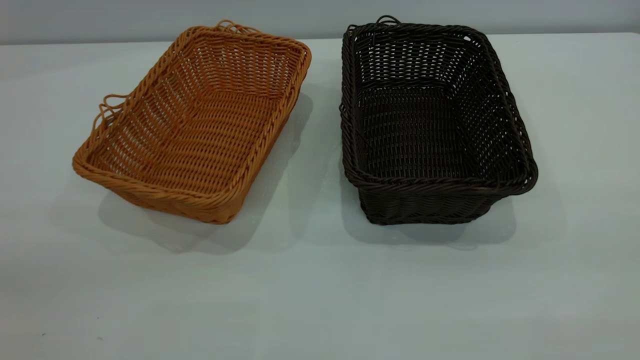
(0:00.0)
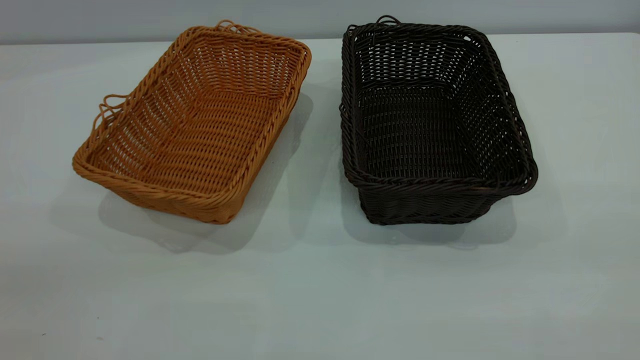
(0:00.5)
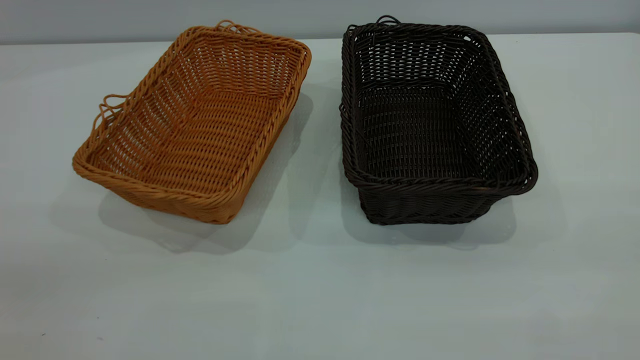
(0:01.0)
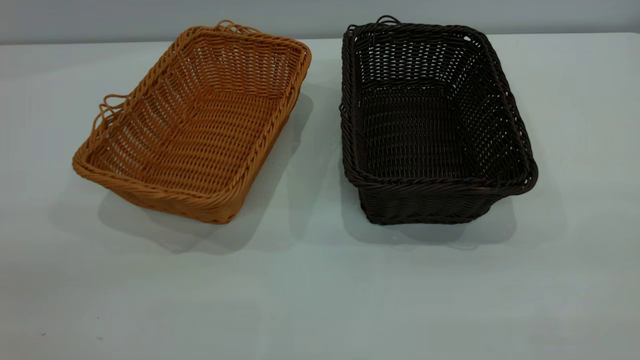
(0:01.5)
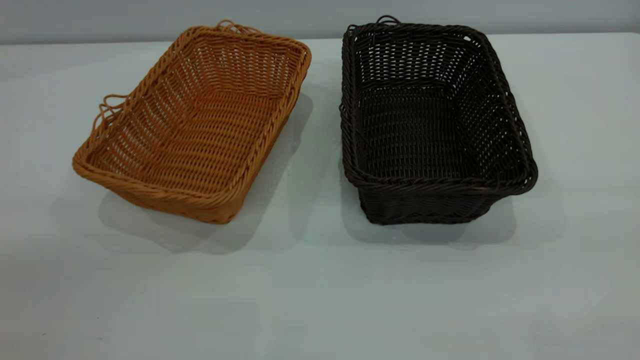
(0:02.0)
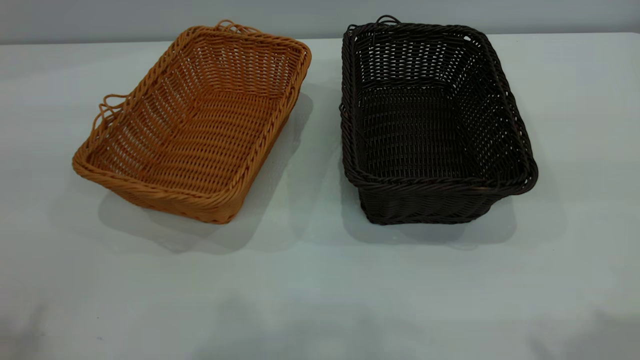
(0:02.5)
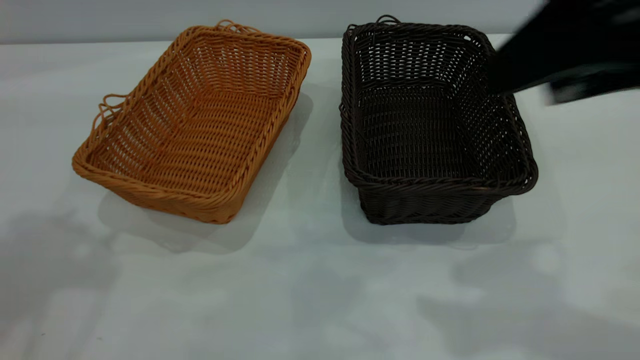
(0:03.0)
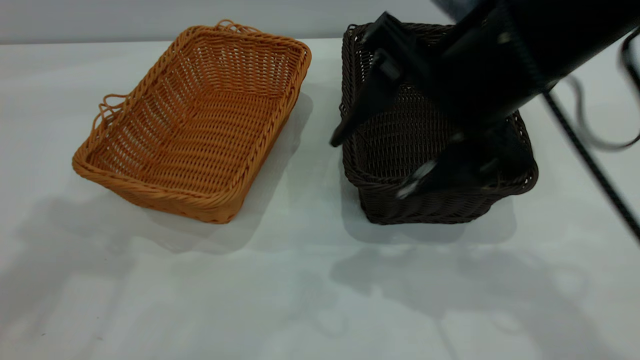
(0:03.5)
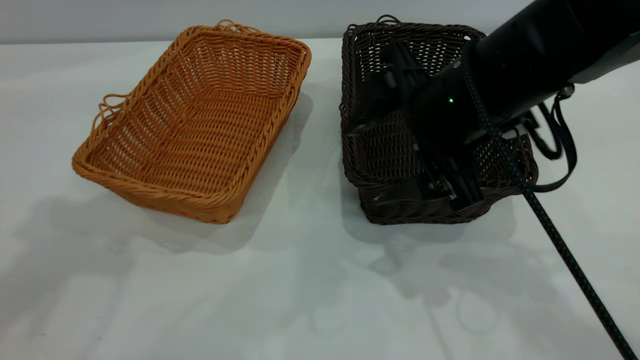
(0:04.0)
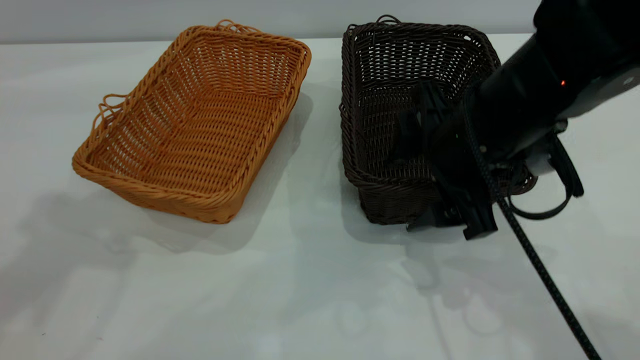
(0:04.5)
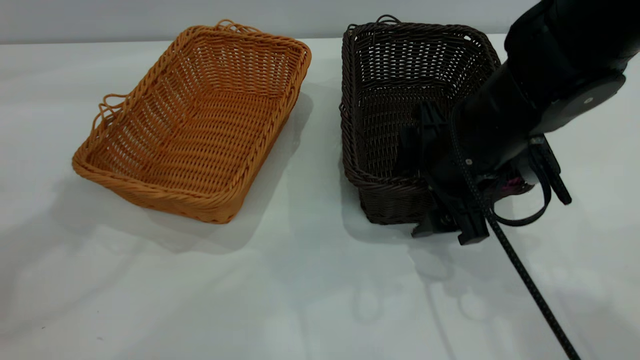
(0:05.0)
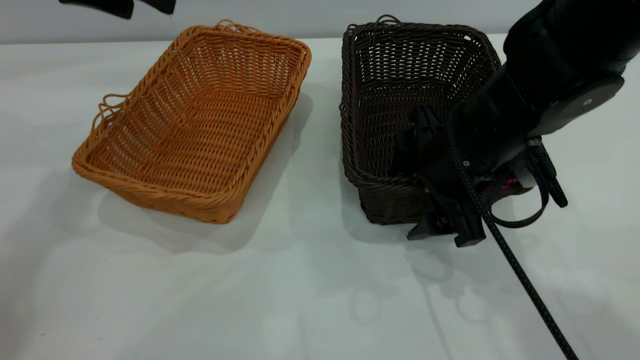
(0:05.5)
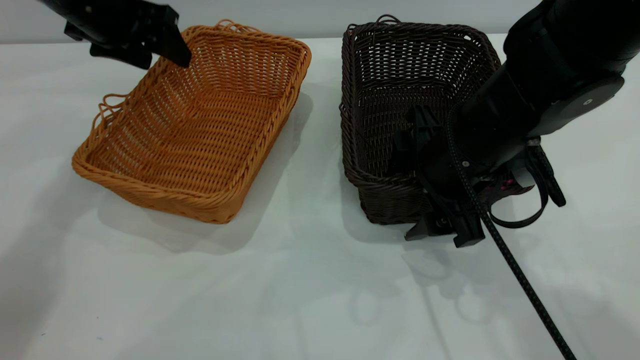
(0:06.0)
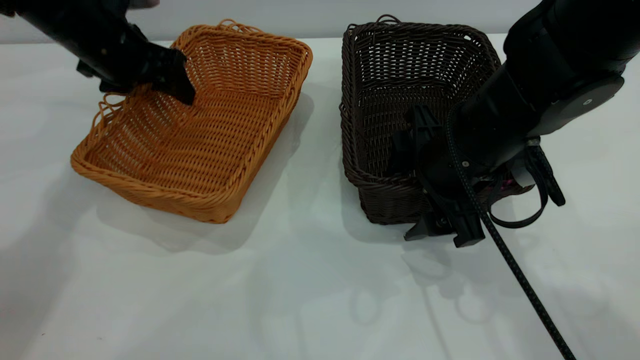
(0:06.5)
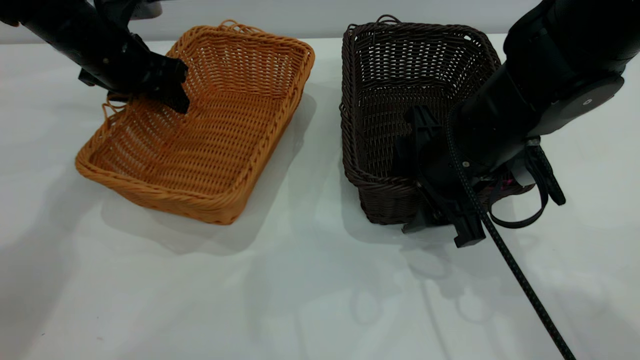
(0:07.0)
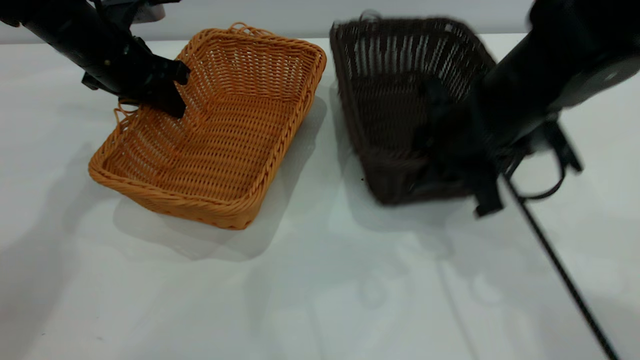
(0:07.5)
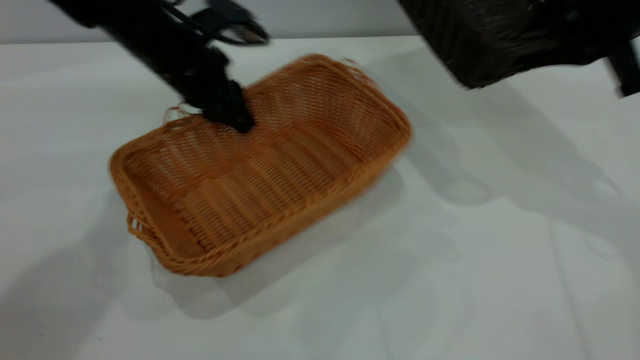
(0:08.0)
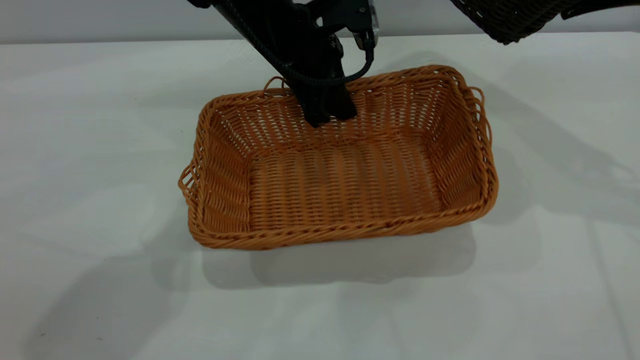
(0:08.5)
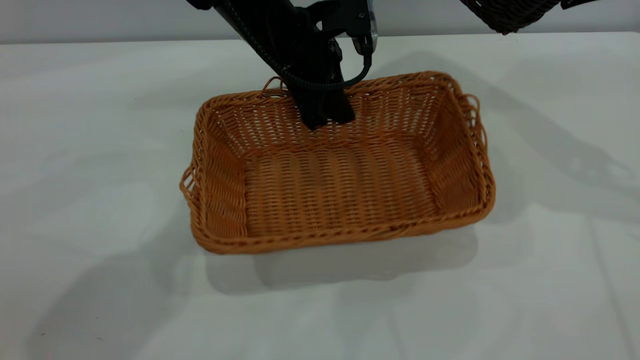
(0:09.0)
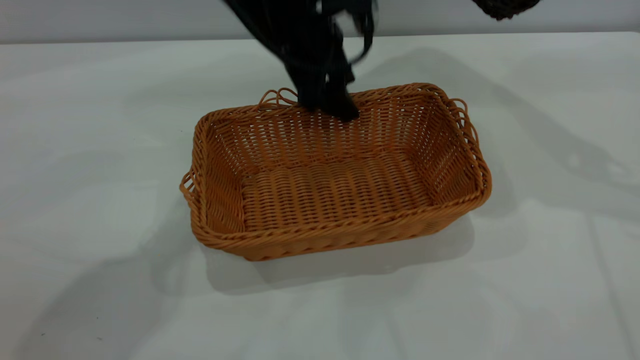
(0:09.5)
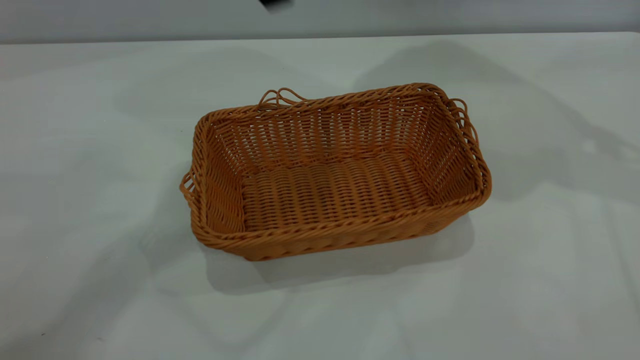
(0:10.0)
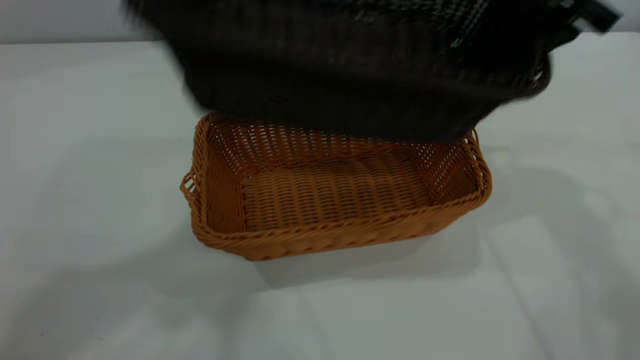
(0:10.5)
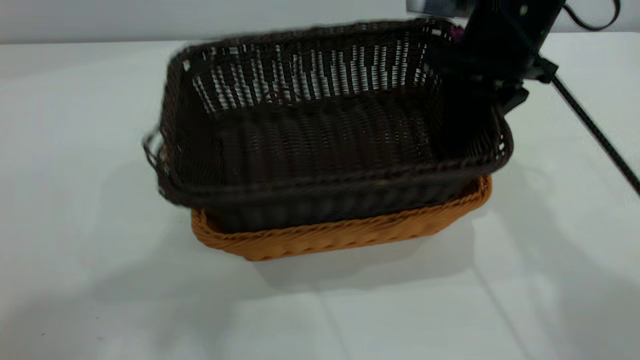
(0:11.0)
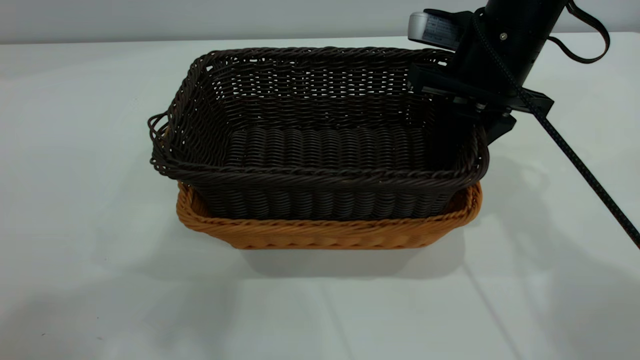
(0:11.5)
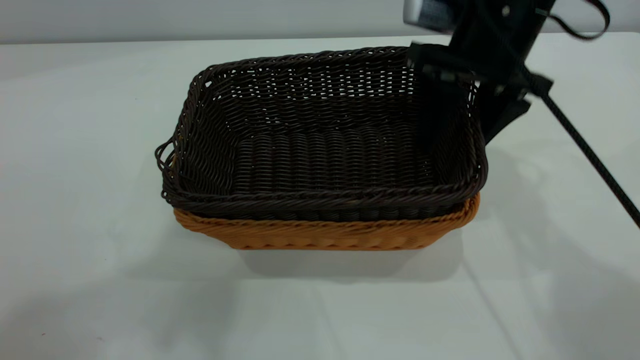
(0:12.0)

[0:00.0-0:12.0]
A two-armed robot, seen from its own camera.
Task of the whole recording: the left gripper grasp the brown basket and place it in the center of the table, the right gripper grasp the black basket and place it inside the brown one.
Step, 0:00.0 to 0:07.5: Pick up the light basket with the right gripper.
Step, 0:08.0 to 0:09.5: Place the light-colored basket in the center.
0:02.0 to 0:04.0: The right gripper is displaced forward, downward and to the left by some 35 cm.
0:04.0 to 0:06.0: The right gripper shifts approximately 5 cm downward. Meanwhile the left gripper is displaced forward and downward by roughly 30 cm.
0:06.0 to 0:08.0: The left gripper is displaced to the right and downward by roughly 10 cm, and closes, while the right gripper travels to the right and upward by approximately 20 cm, and closes up.
0:08.0 to 0:10.0: The right gripper travels upward by roughly 10 cm. The left gripper travels upward by about 25 cm, and opens up.
0:10.0 to 0:12.0: The left gripper goes about 25 cm upward and backward. Meanwhile the right gripper is displaced to the left and downward by approximately 20 cm, and opens its fingers.

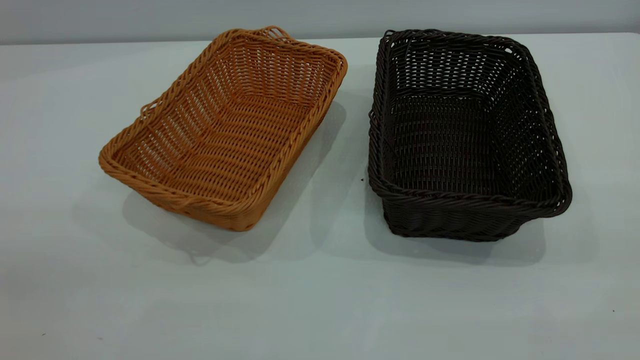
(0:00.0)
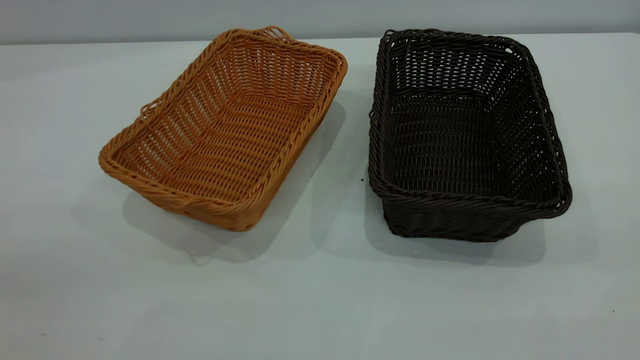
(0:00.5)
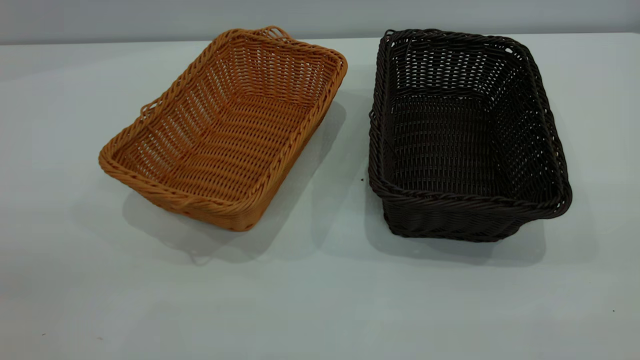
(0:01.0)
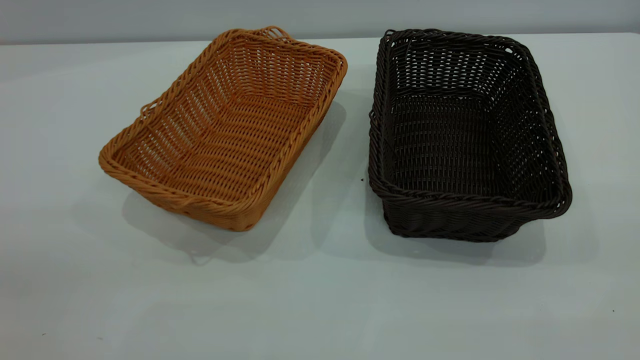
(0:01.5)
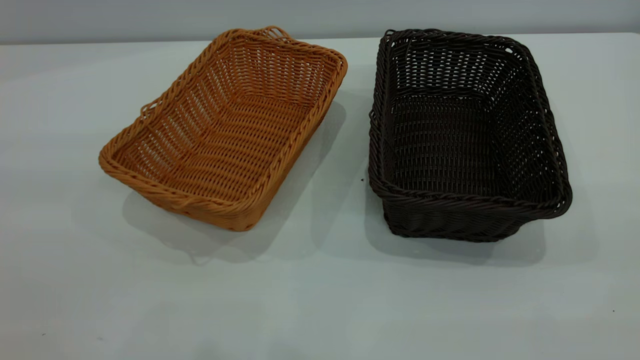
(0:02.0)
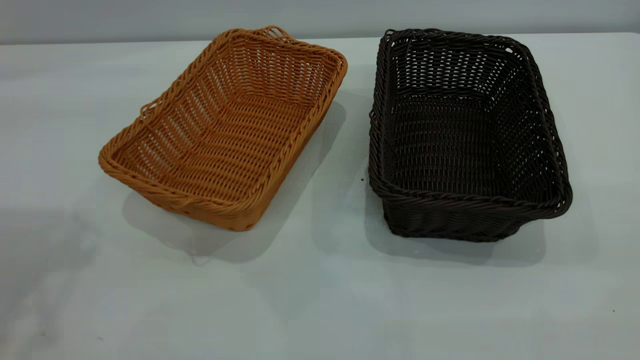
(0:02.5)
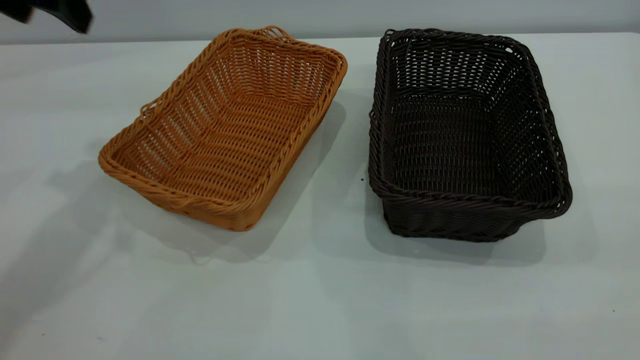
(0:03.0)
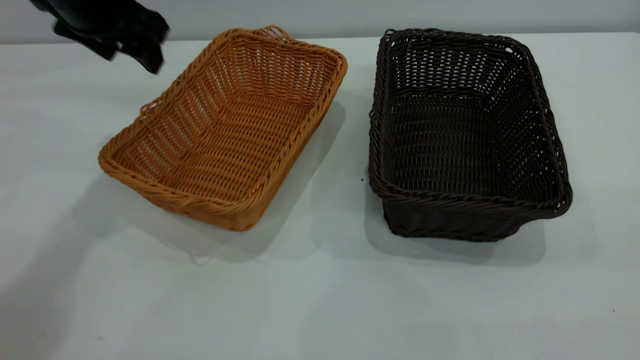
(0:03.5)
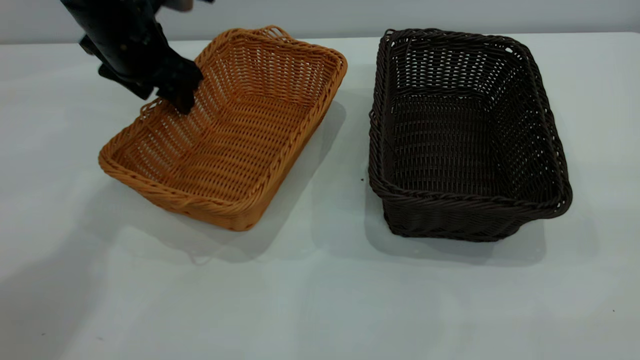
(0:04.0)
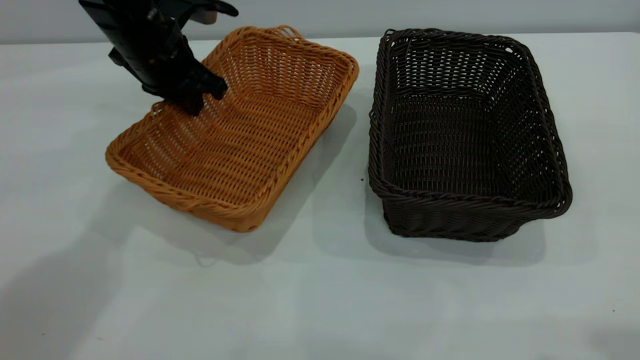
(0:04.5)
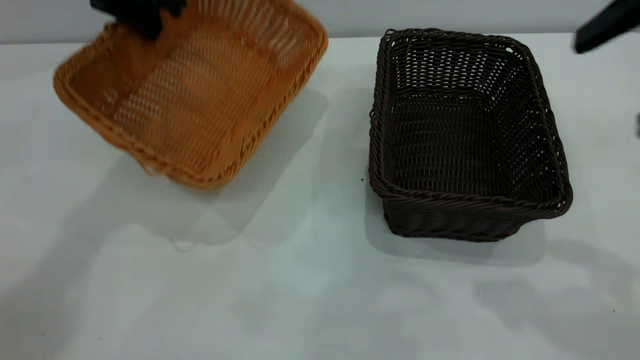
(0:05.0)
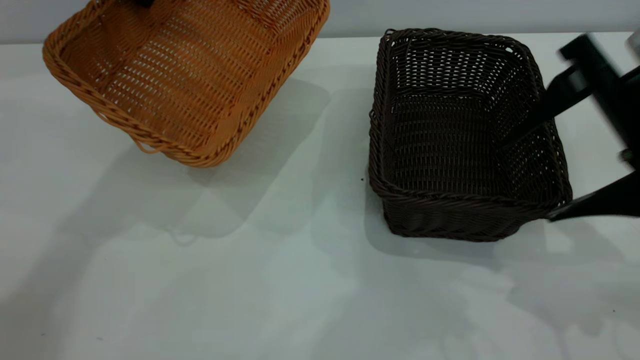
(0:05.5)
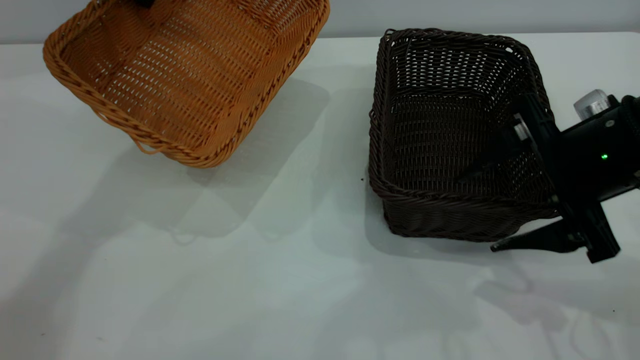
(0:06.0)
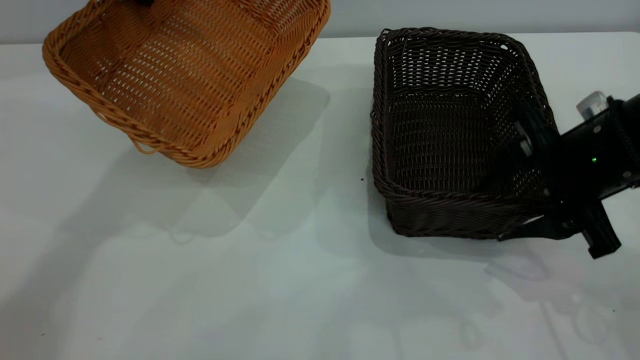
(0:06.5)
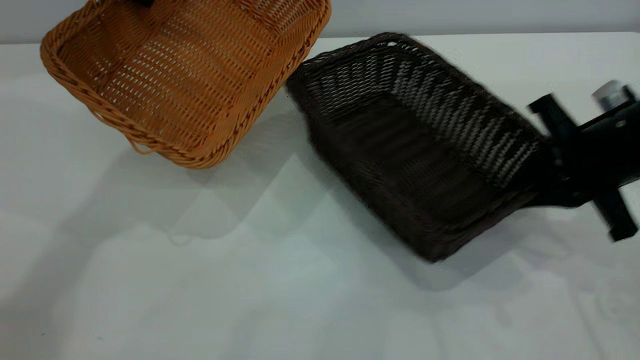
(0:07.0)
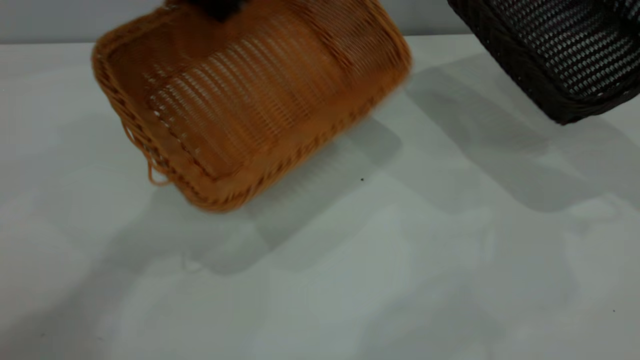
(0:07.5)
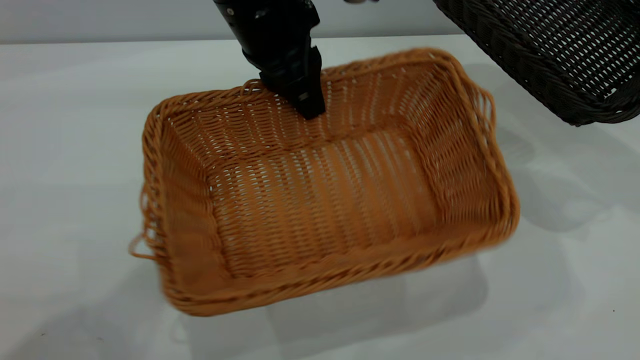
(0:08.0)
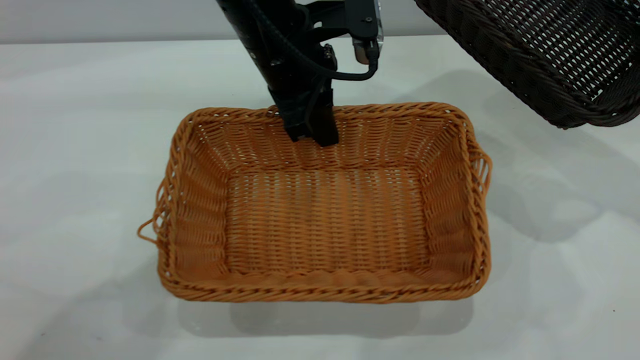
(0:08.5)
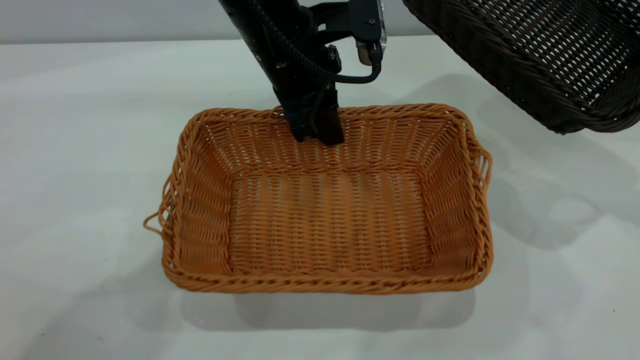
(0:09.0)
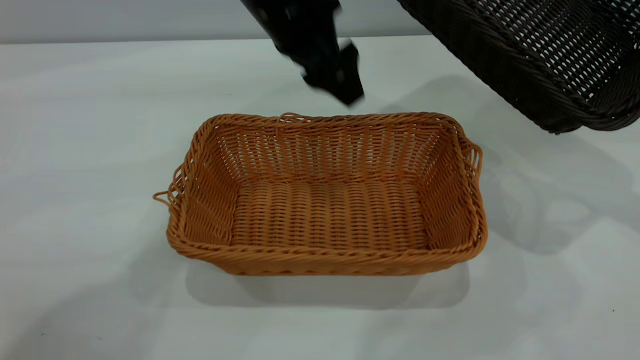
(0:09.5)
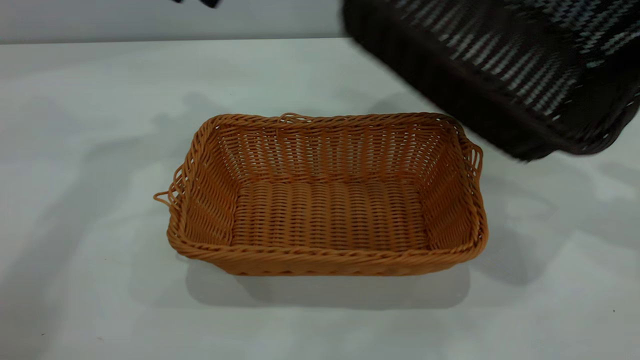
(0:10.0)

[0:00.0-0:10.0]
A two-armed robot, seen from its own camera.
Task of the whole recording: the left gripper grasp the brown basket and place it in the center of the table, the right gripper grasp the black basket and place it inside the brown one.
Step, 0:00.0 to 0:07.0: Pick up the light basket with the right gripper.
Step, 0:07.5 to 0:09.5: Place the light-colored basket in the center.
0:02.0 to 0:04.0: The left gripper shifts some 40 cm forward and downward.
0:04.0 to 0:06.0: The right gripper travels forward and downward by roughly 35 cm. The left gripper heads upward, covering about 10 cm, and closes up.
0:06.0 to 0:08.0: The right gripper shifts roughly 20 cm to the right and upward, and closes, while the left gripper heads to the right and backward, covering about 15 cm.
0:08.0 to 0:10.0: The left gripper shifts about 20 cm to the left and forward, and opens its fingers; the right gripper shifts roughly 5 cm to the left.
